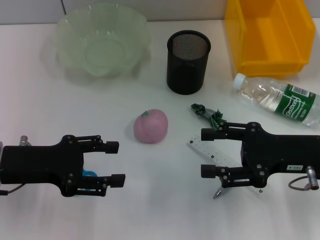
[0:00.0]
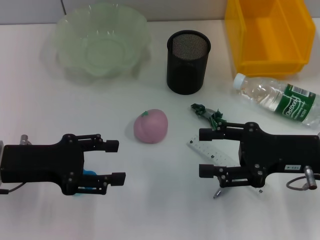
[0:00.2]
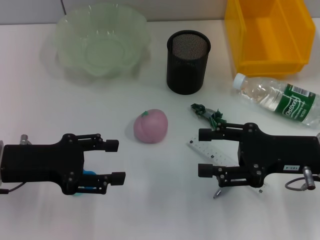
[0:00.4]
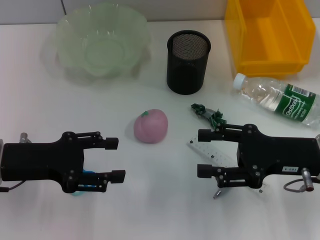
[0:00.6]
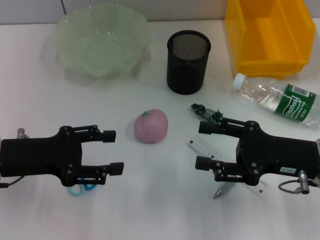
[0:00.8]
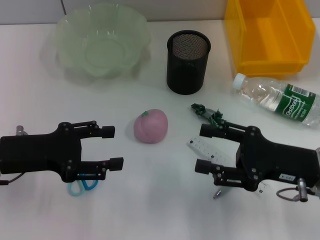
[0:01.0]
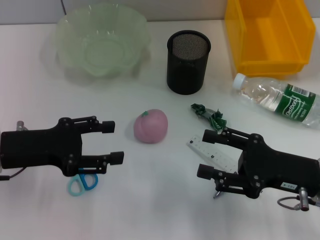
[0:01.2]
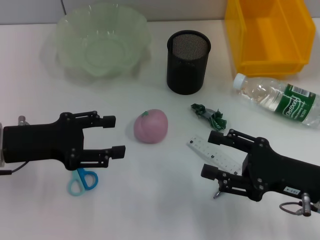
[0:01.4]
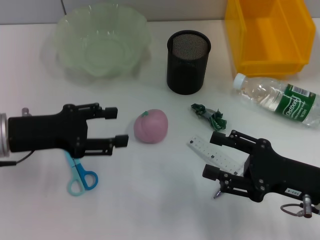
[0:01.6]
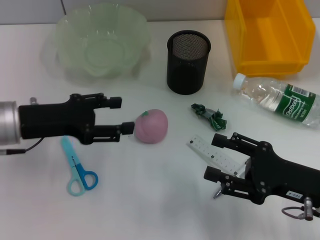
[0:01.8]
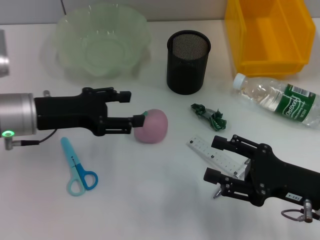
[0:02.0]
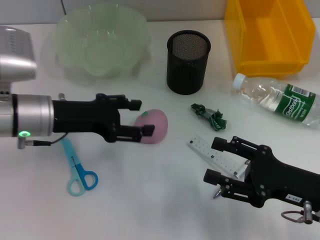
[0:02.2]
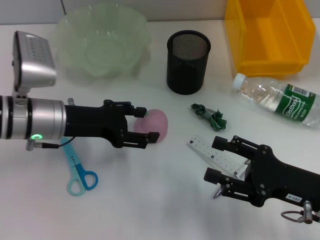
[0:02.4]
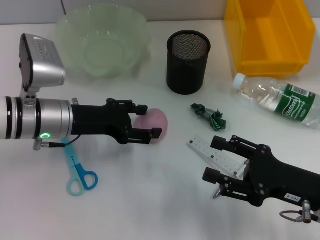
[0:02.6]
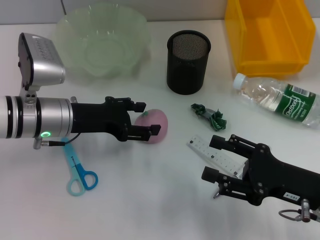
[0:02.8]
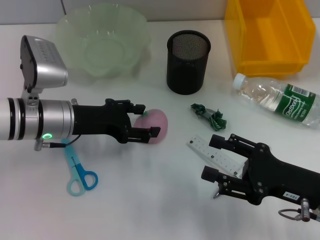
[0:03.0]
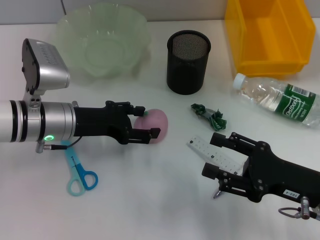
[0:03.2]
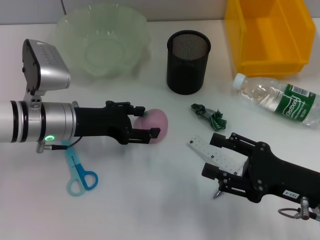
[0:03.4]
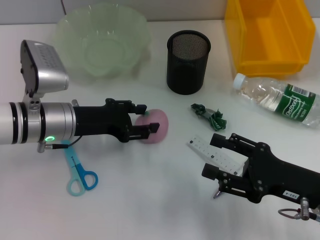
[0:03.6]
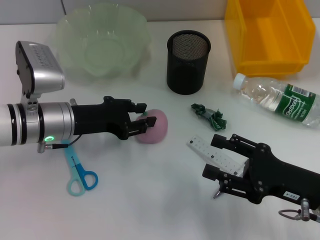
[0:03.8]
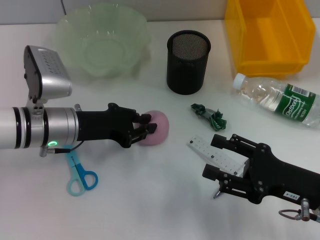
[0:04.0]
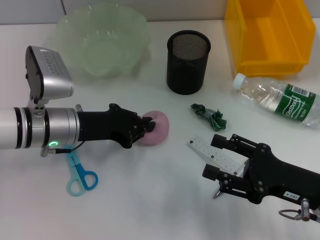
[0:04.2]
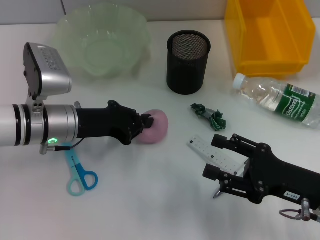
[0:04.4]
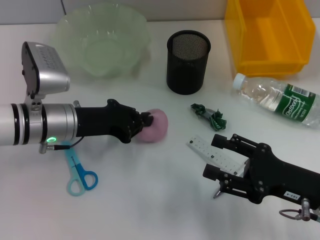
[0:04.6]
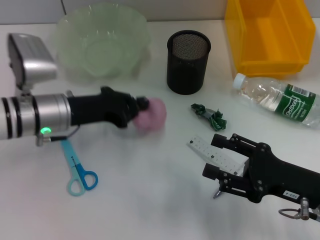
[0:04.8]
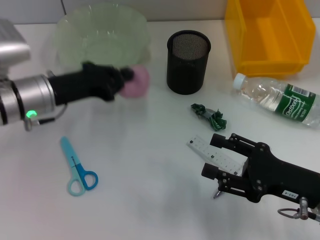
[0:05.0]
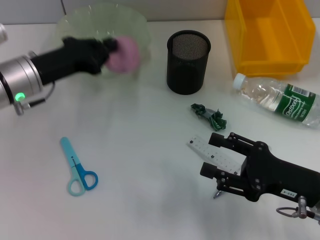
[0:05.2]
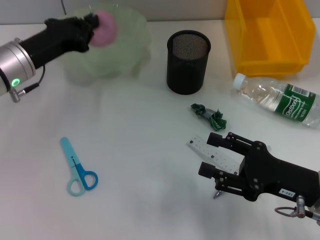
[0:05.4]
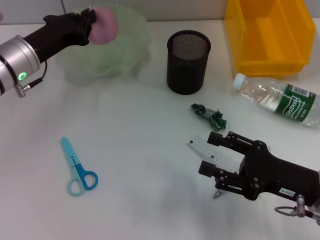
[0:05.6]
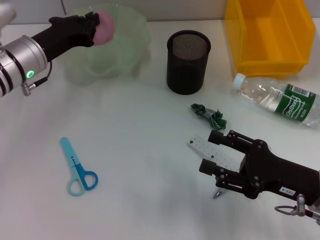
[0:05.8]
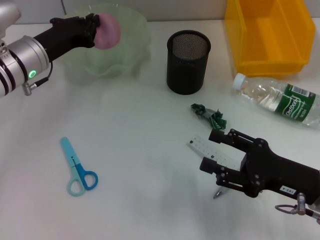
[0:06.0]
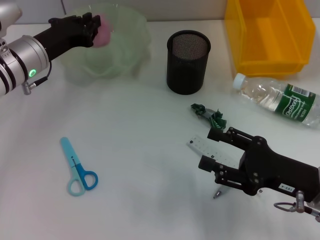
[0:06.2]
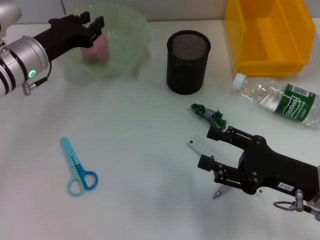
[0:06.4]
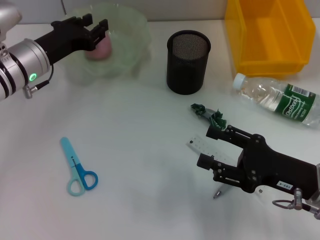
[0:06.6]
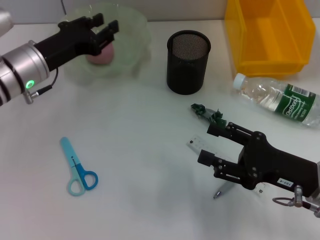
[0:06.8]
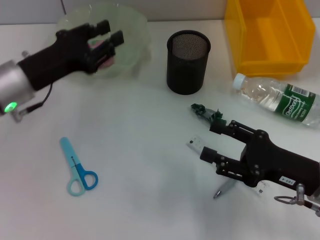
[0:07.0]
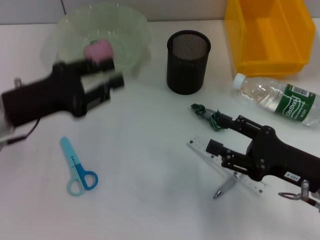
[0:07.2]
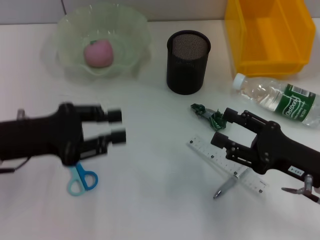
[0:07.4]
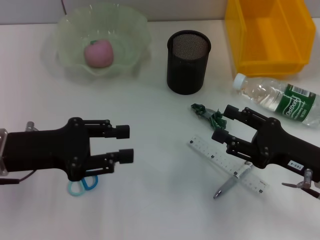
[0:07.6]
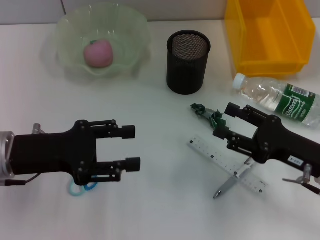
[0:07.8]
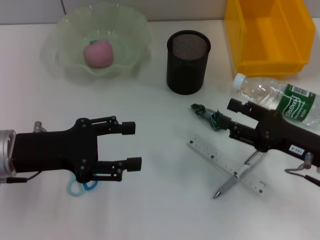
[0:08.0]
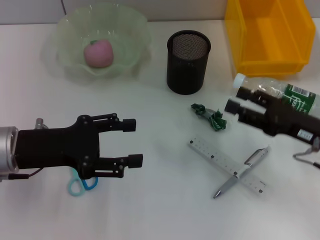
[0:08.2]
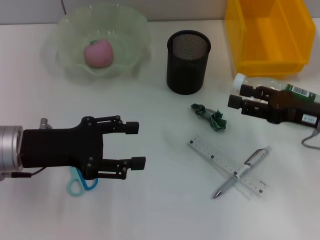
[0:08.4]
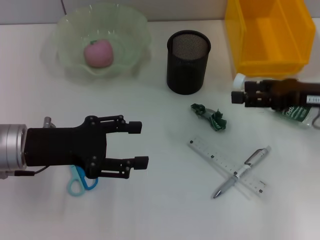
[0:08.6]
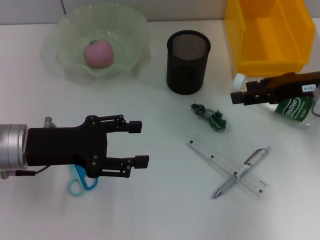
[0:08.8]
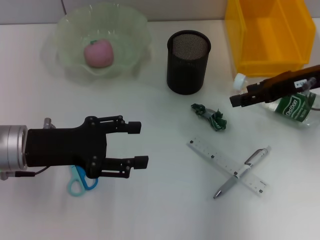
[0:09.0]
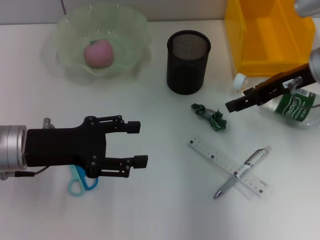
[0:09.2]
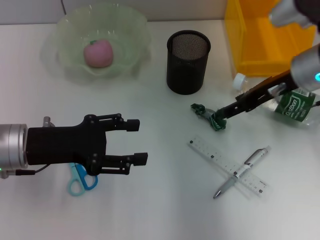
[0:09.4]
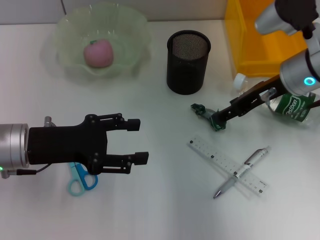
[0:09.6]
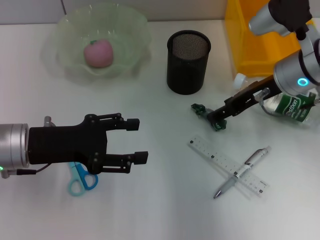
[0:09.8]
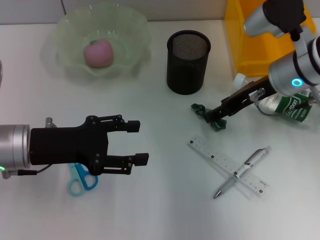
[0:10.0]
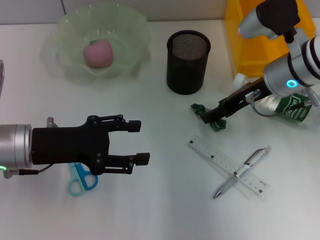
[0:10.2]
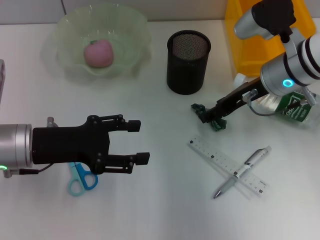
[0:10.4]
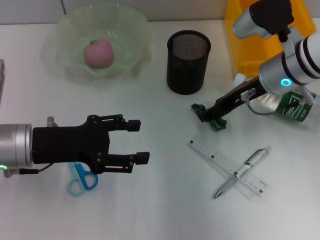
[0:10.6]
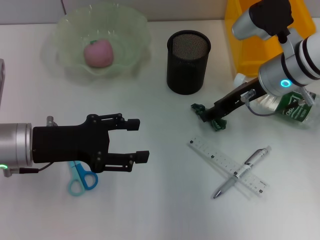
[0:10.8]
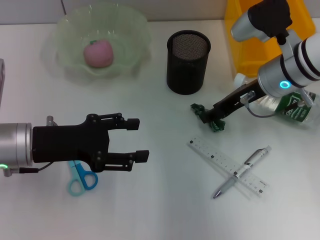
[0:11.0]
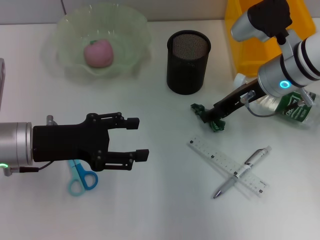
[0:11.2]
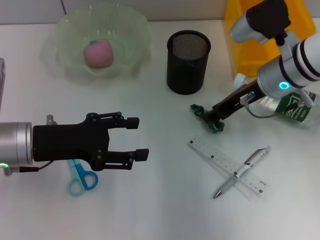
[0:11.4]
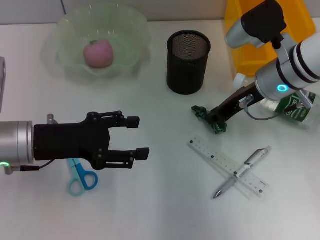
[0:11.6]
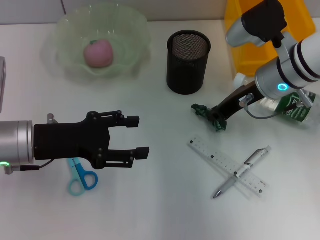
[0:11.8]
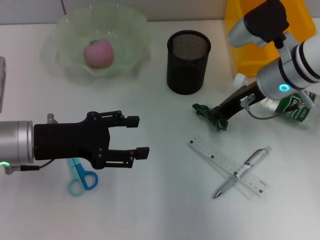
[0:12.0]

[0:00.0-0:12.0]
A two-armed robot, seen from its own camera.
Step, 0:00.0 to 0:04.4: Grab the peach with the left hand.
Step, 0:04.8 to 0:06.6: Place the peach into the fruit bowl with the left hand.
0:00.0 to 0:01.6: The right gripper changes place by roughly 5 cm.
0:01.6 to 0:03.0: The left gripper is displaced to the right and forward by approximately 10 cm.
0:03.0 to 0:04.4: The left gripper closes up.
0:04.4 to 0:06.0: The left gripper heads forward, covering some 5 cm.
0:06.0 to 0:07.6: The left gripper goes approximately 15 cm backward, and opens its fingers.
0:07.6 to 0:09.0: The left gripper opens up. Meanwhile the right gripper moves forward and upward, roughly 15 cm.
0:09.0 to 0:10.4: The right gripper heads to the left, covering some 10 cm.
0:10.4 to 0:12.0: The right gripper closes.

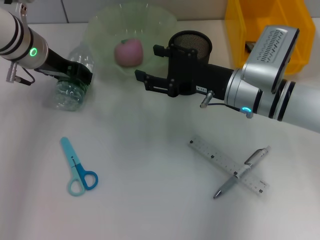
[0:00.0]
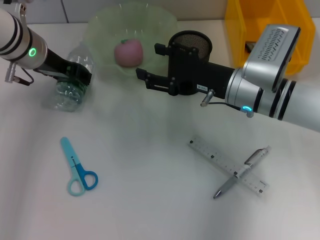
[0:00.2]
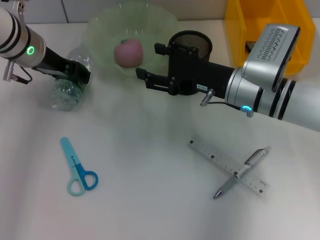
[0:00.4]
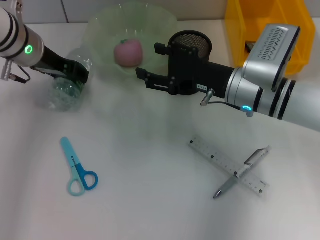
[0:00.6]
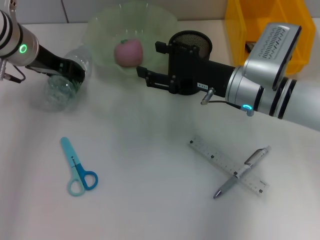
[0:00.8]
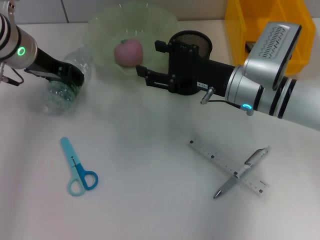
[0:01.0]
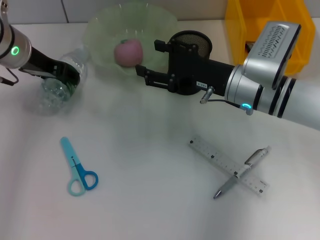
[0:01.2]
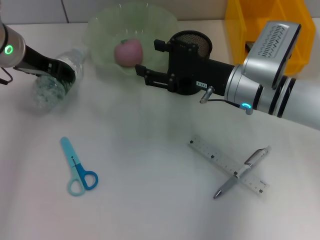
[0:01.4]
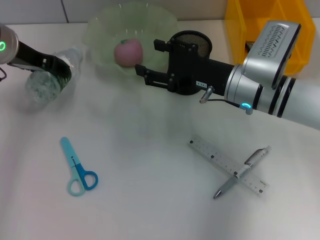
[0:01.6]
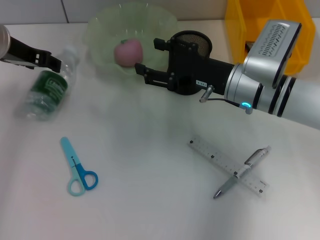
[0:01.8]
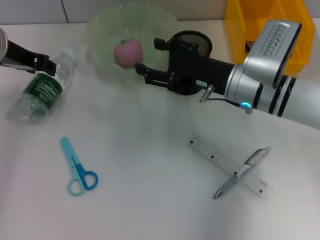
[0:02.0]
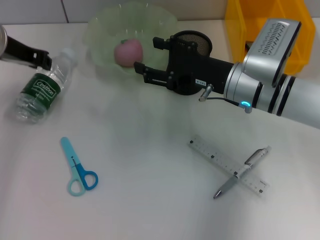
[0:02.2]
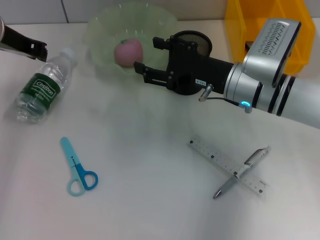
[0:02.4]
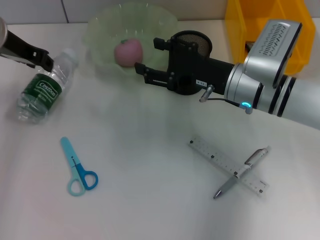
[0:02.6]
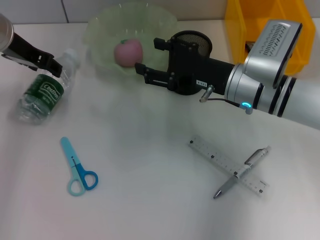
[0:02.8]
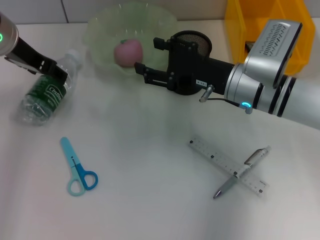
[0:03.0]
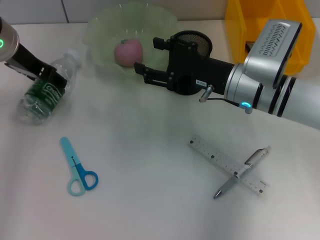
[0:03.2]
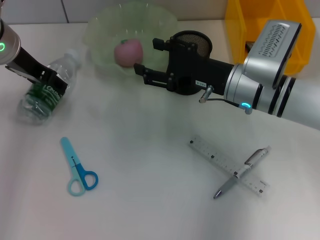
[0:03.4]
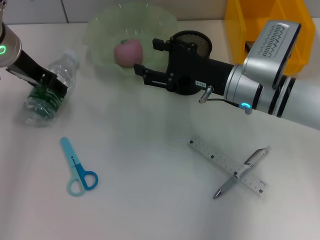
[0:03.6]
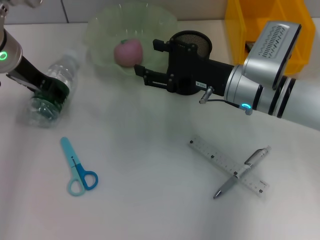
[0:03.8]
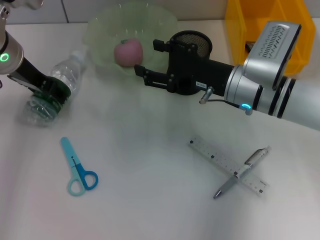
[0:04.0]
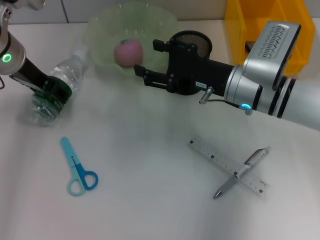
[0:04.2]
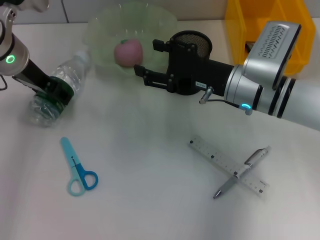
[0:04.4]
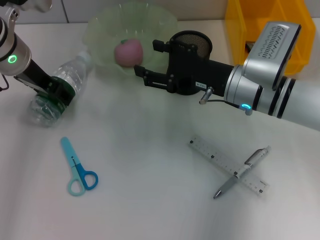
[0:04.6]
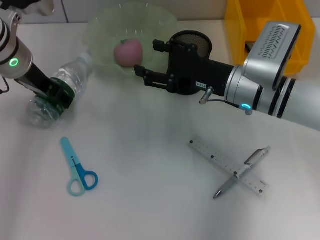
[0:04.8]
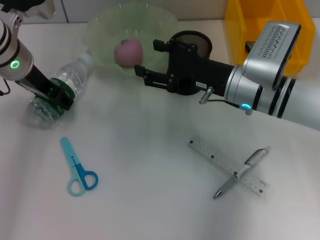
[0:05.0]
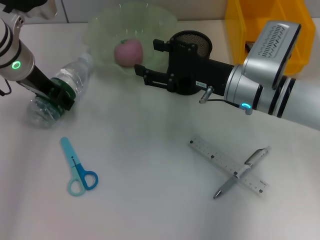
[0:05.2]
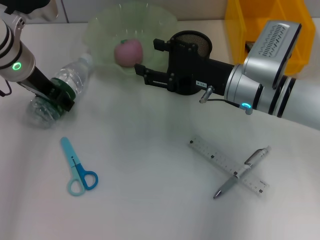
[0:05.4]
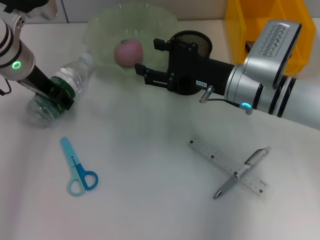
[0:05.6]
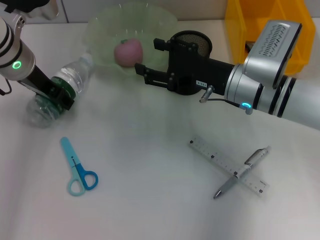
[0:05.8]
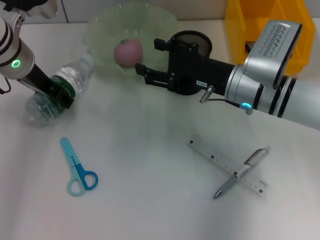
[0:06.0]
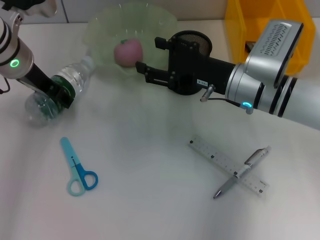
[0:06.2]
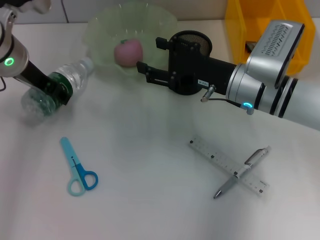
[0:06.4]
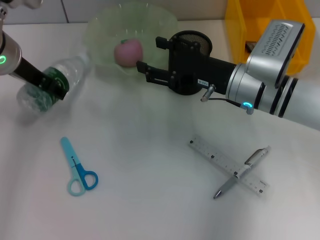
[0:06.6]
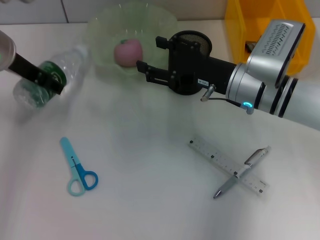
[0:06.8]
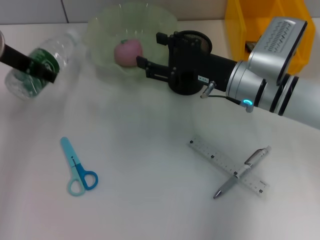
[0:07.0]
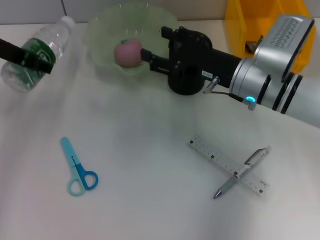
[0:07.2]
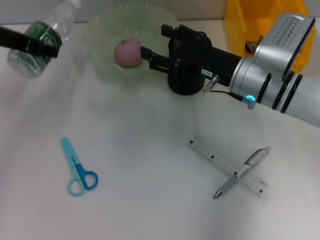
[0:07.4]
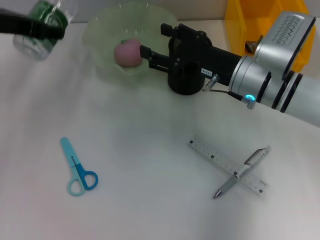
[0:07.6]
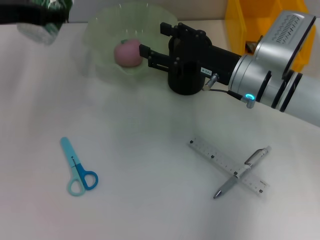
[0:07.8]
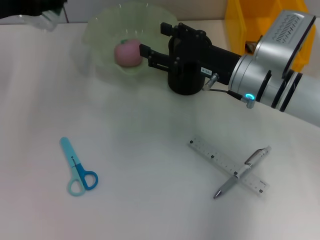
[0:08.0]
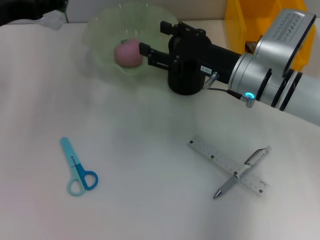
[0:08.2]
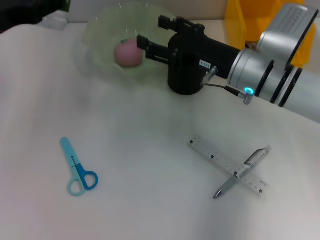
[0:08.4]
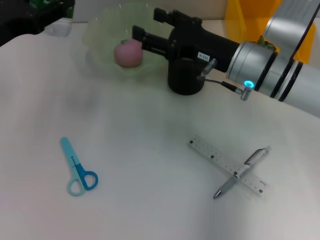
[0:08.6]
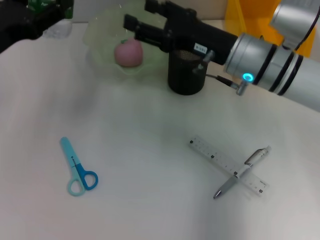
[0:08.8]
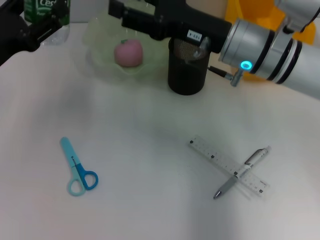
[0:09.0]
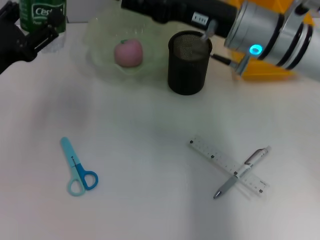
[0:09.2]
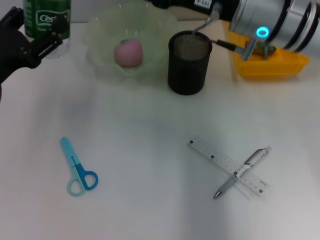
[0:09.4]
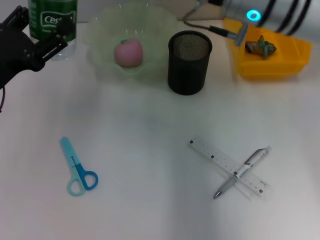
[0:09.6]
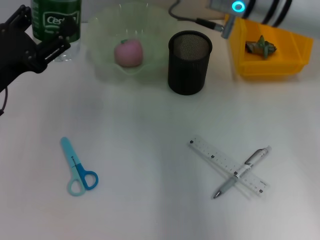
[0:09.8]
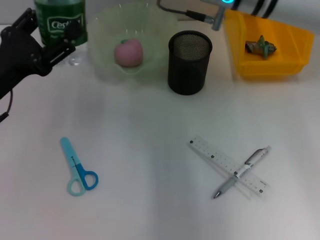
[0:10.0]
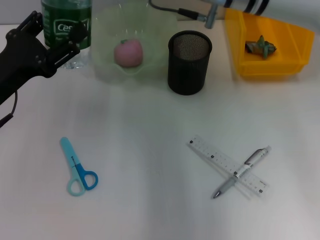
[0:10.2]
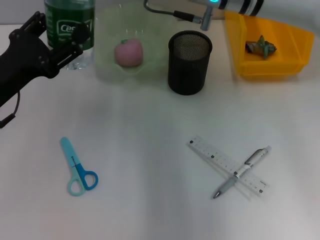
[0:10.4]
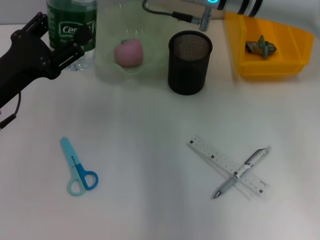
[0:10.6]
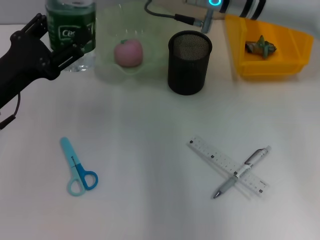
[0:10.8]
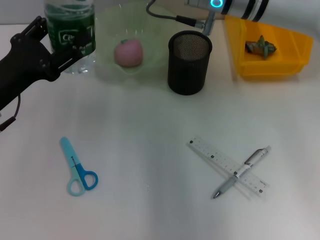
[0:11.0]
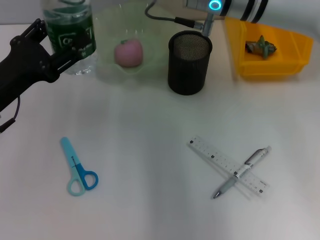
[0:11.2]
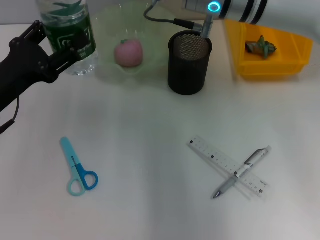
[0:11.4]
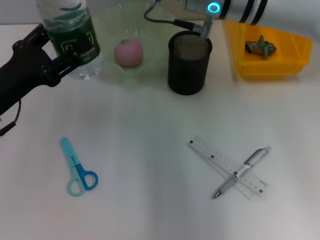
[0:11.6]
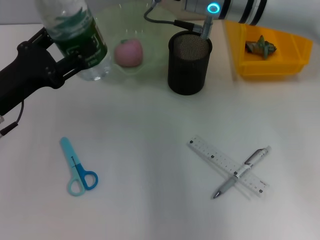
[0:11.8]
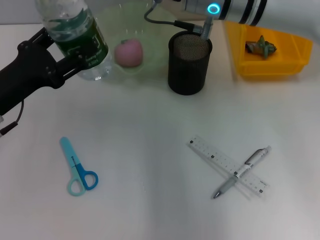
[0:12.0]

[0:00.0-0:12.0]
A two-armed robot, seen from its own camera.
Step, 0:00.0 to 0:06.2: Grab the water bottle with the left hand.
0:00.0 to 0:01.6: The grippers stay close to where they were, moving slightly.
0:01.6 to 0:03.0: The left gripper closes and opens again.
0:03.0 to 0:04.4: The grippers make only small movements.
0:04.4 to 0:06.0: The two grippers keep their place.
0:06.0 to 0:07.6: The left gripper shifts roughly 10 cm upward.
0:07.6 to 0:09.0: The right gripper travels upward by approximately 5 cm. Meanwhile the left gripper heads downward and backward, covering about 10 cm.
0:09.0 to 0:10.4: The right gripper moves upward and to the left, about 10 cm.
0:10.4 to 0:12.0: The right gripper closes up.
